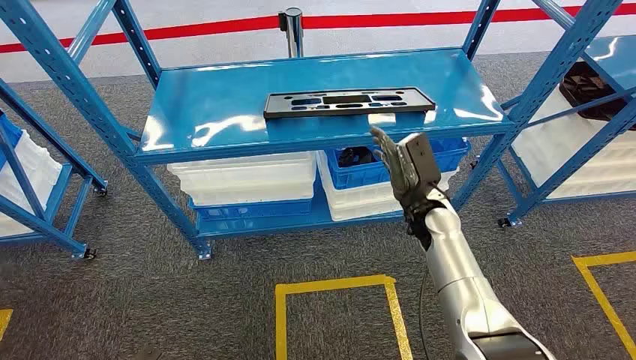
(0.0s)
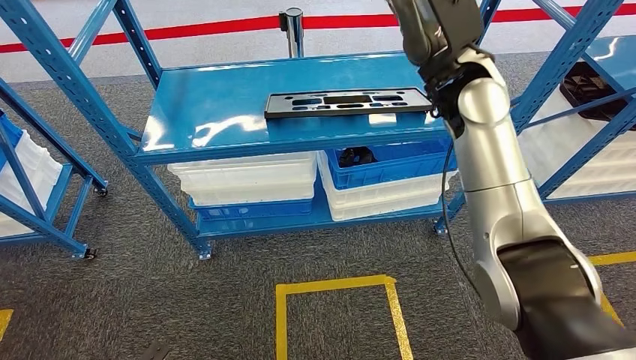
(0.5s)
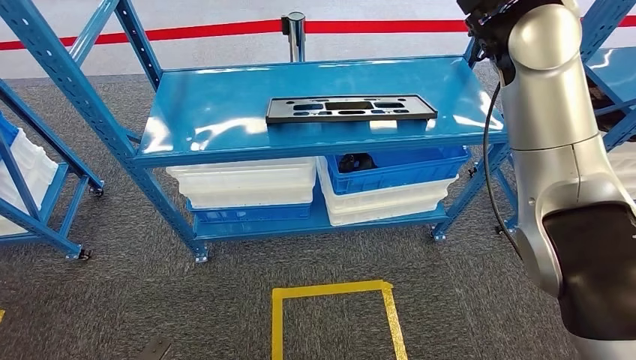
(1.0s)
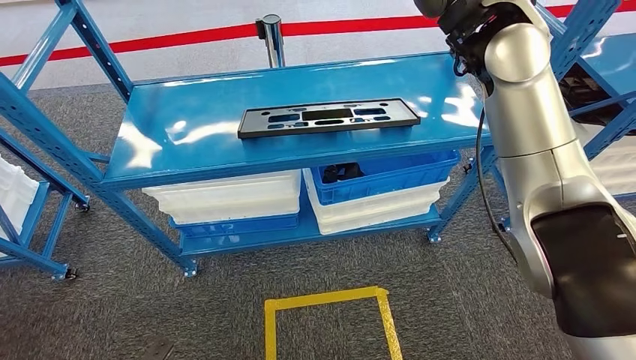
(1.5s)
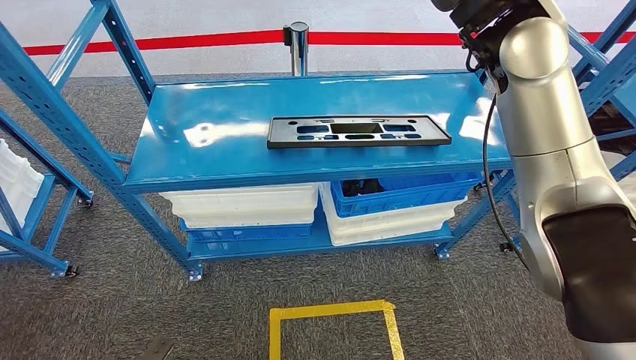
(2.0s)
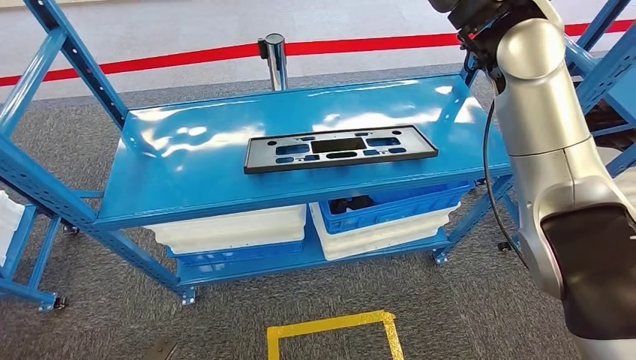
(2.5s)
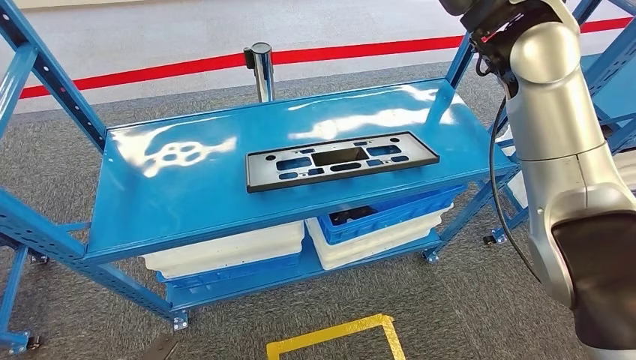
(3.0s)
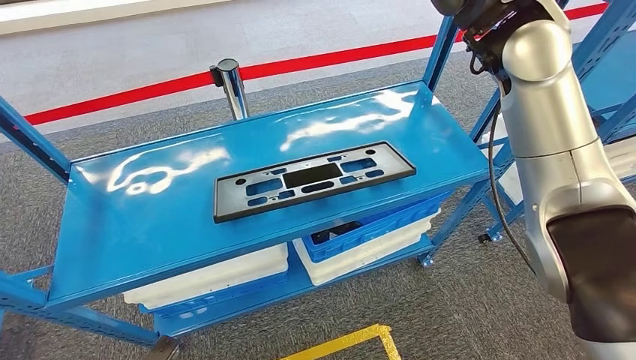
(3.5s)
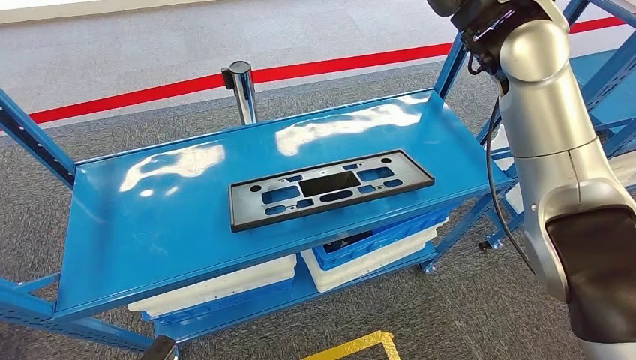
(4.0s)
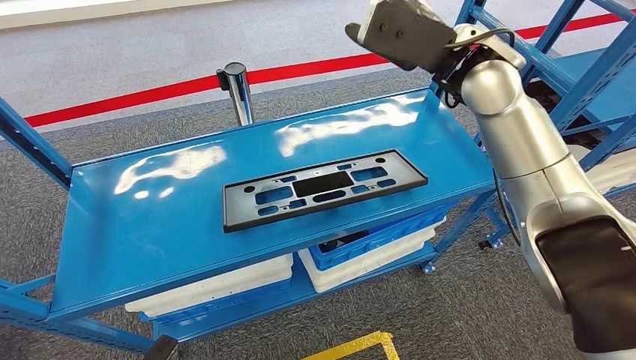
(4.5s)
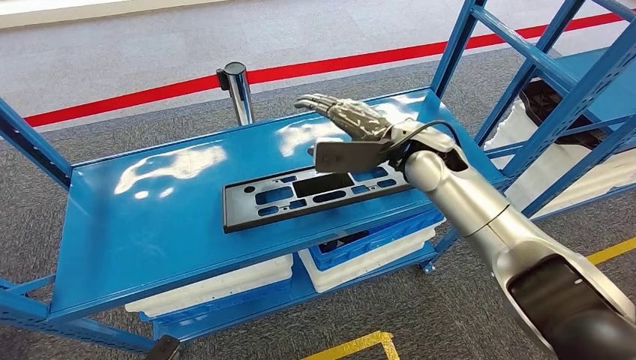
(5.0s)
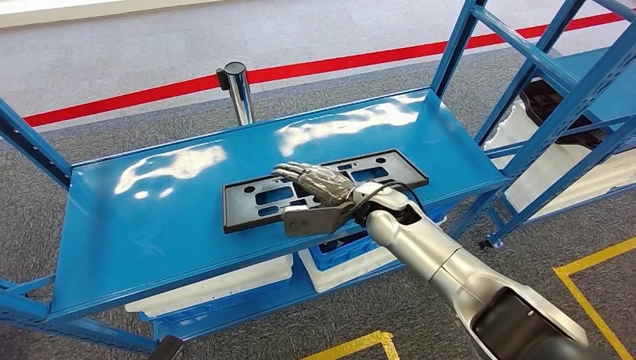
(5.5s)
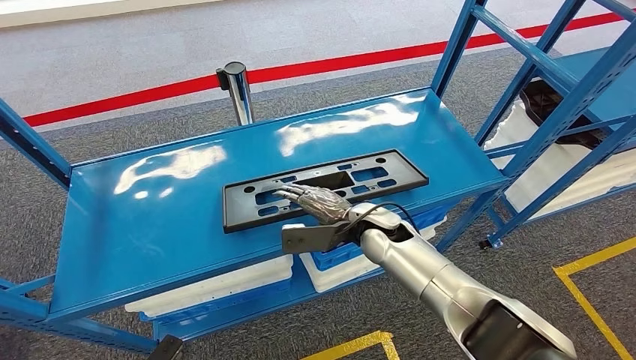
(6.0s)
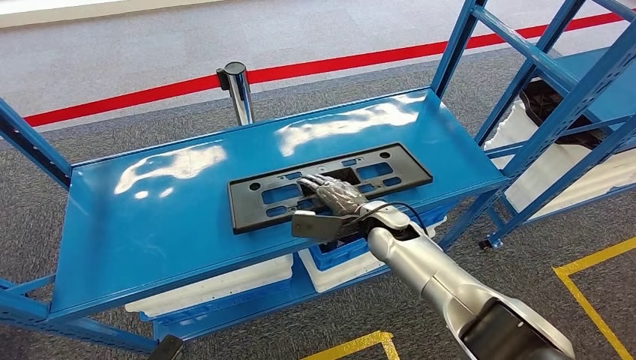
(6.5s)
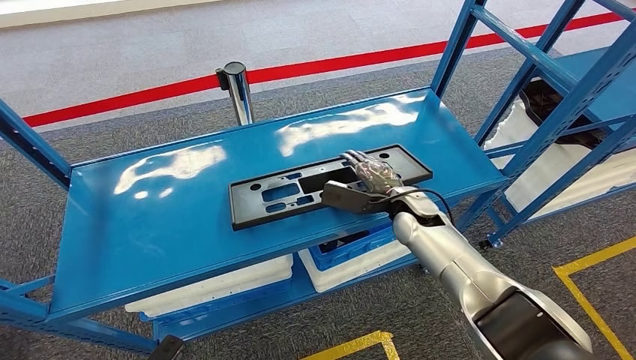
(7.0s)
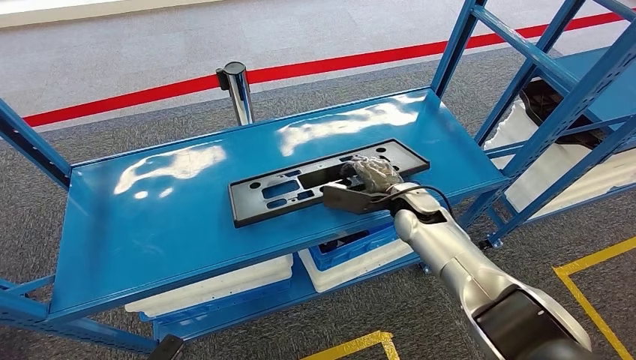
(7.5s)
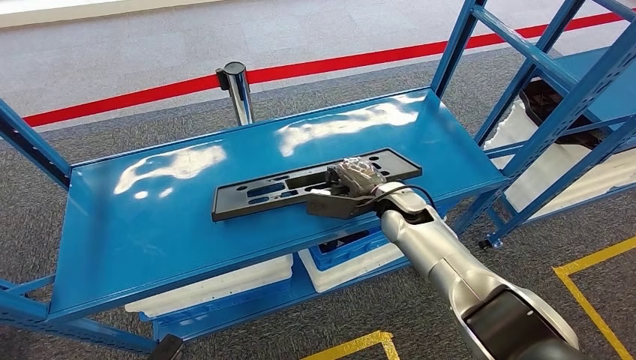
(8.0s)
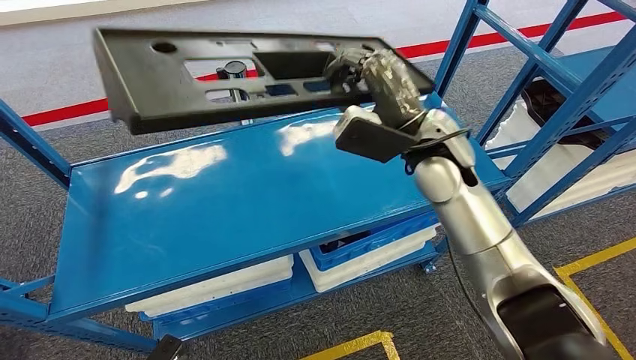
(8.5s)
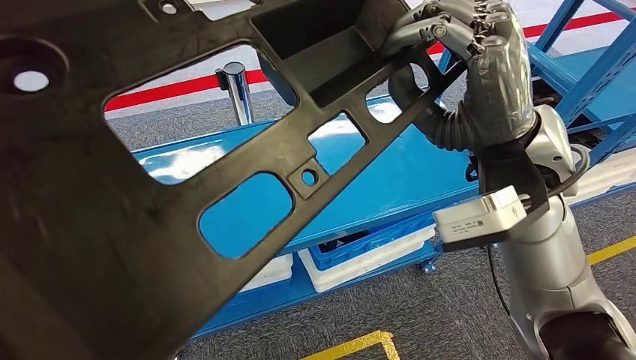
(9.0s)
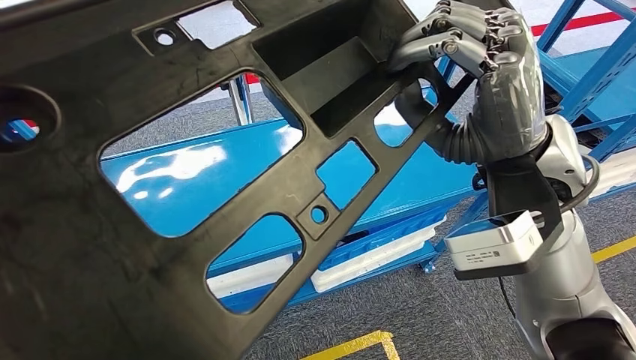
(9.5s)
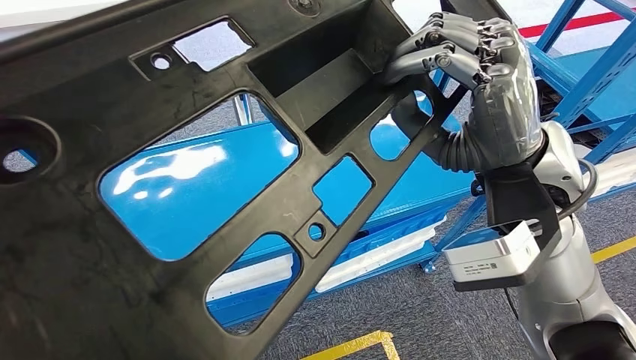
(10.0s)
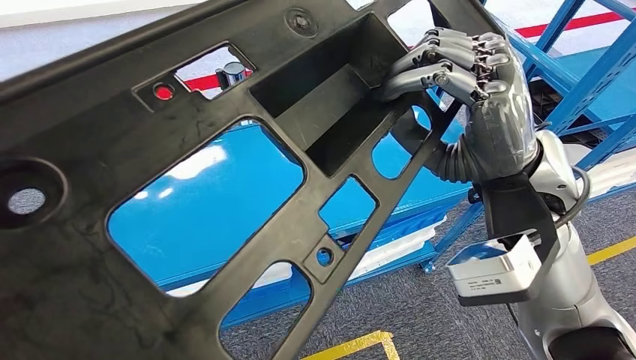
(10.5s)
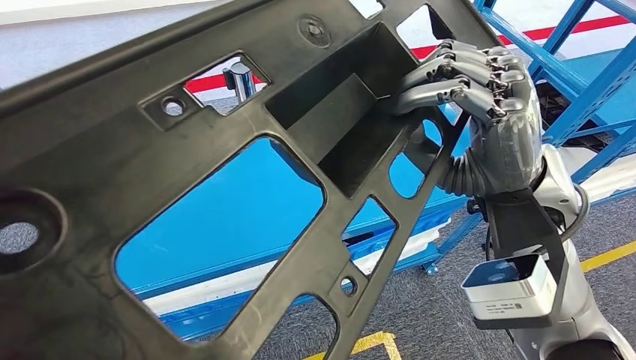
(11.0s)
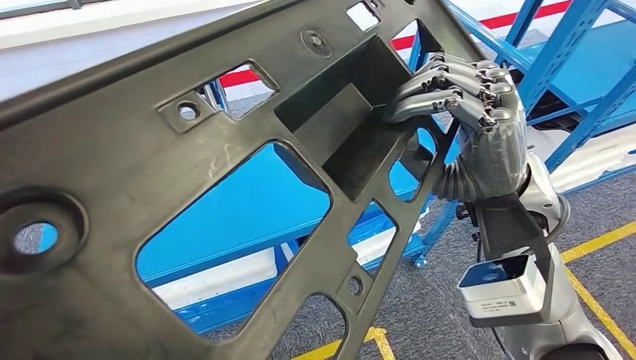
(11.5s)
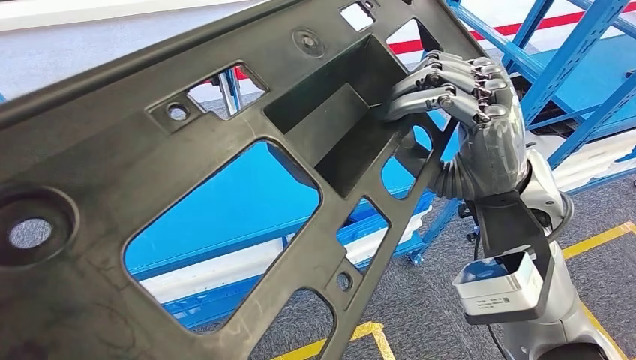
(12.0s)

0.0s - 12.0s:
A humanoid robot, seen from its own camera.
Step, 0.0s - 9.0s: Pick up the large material from the shelf.

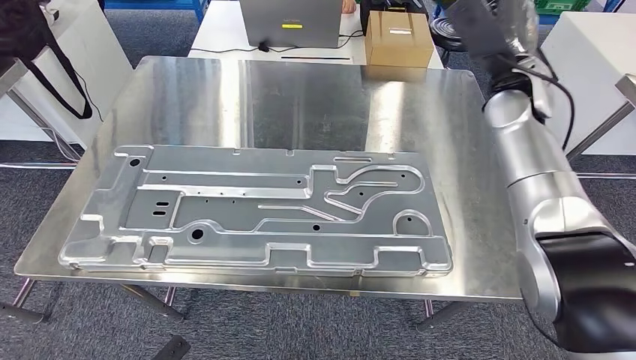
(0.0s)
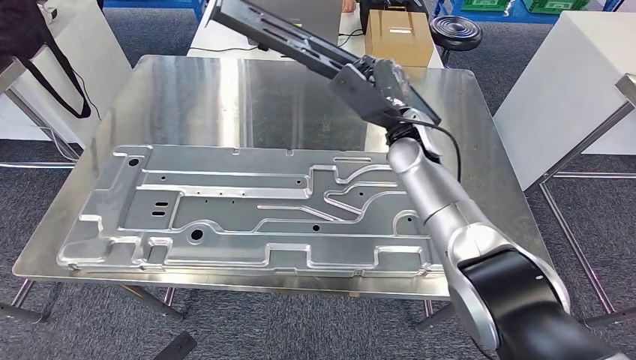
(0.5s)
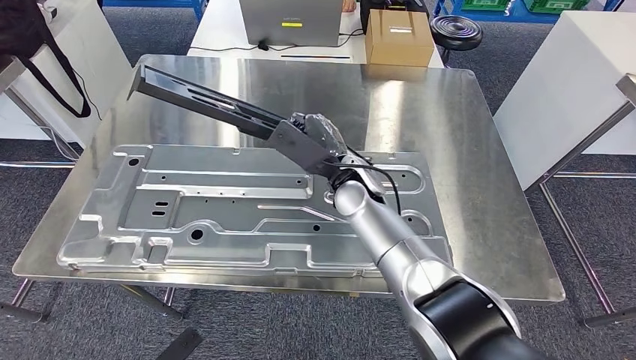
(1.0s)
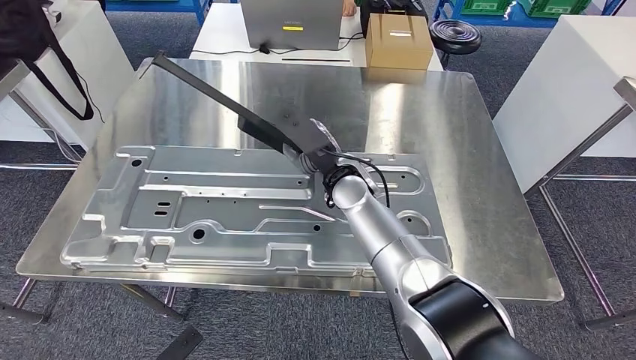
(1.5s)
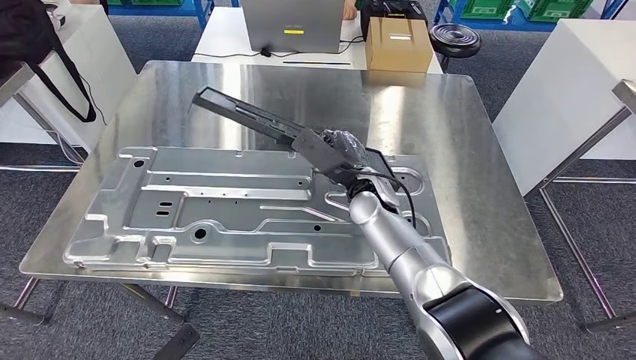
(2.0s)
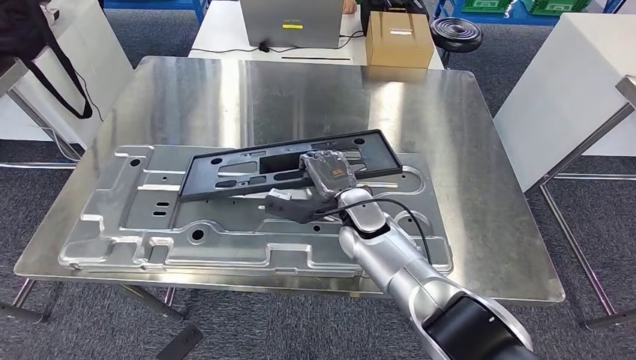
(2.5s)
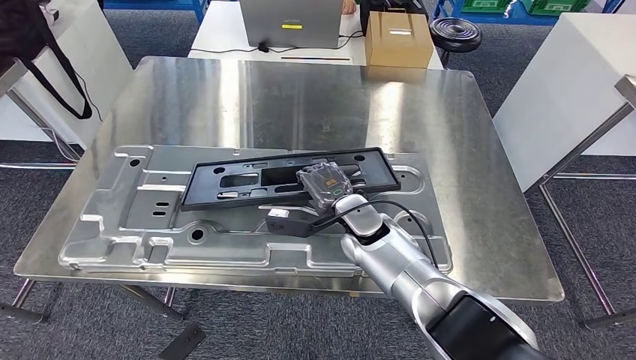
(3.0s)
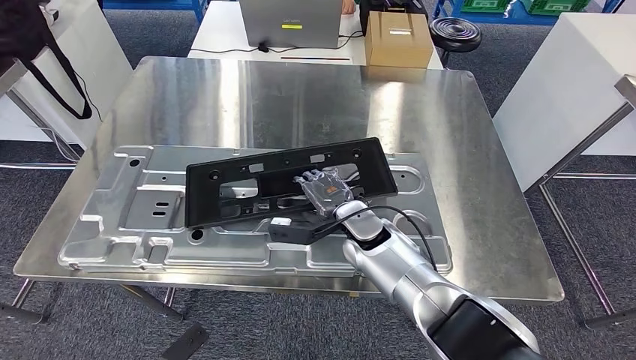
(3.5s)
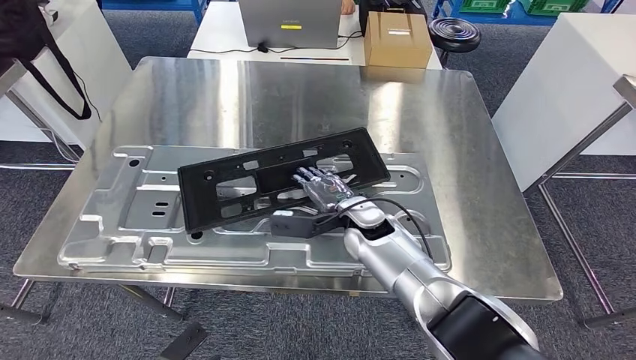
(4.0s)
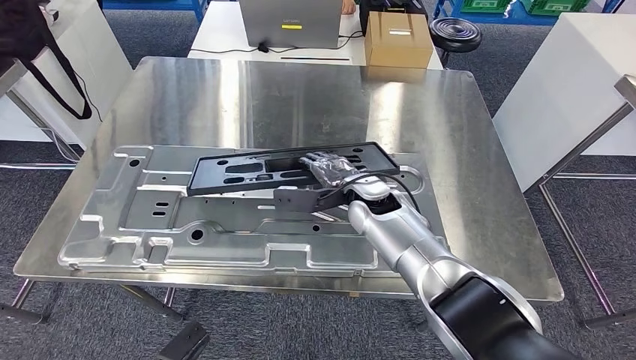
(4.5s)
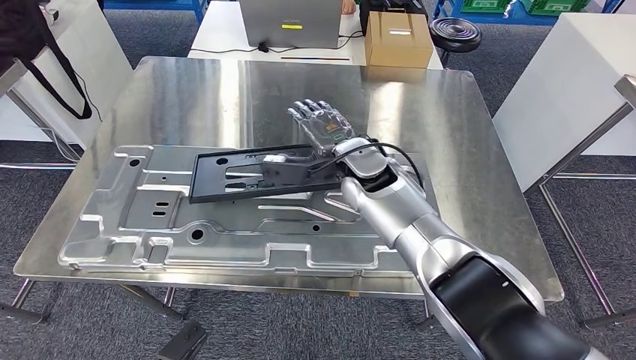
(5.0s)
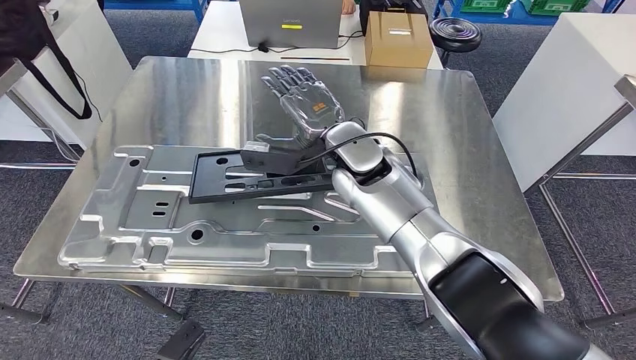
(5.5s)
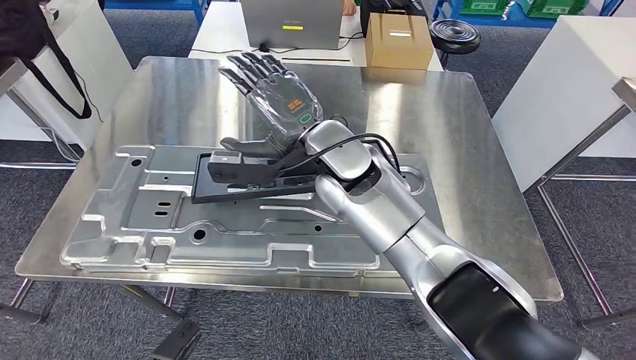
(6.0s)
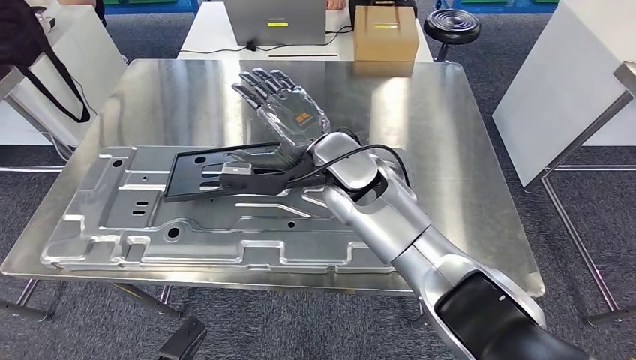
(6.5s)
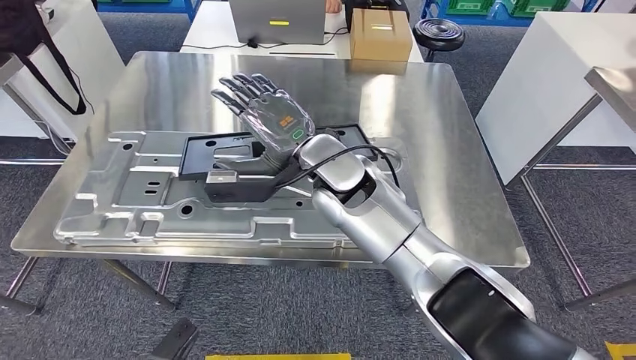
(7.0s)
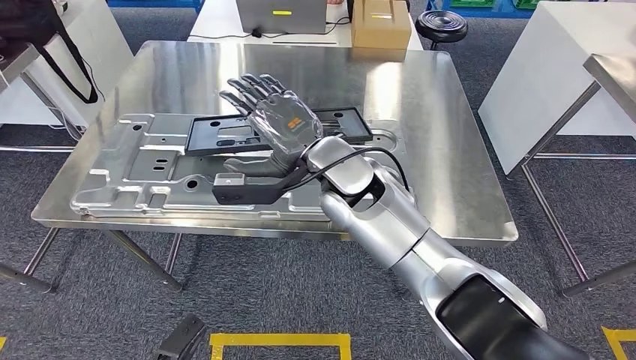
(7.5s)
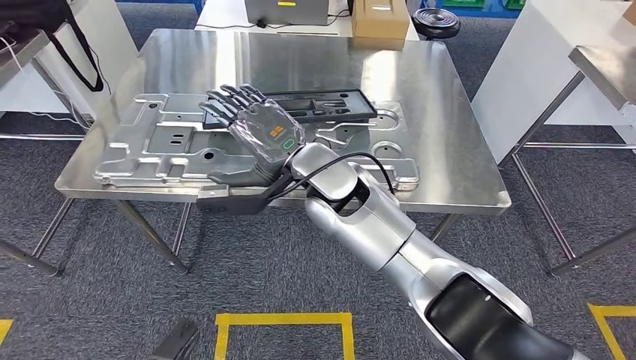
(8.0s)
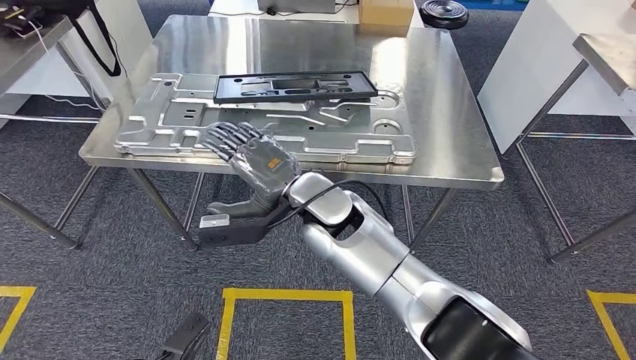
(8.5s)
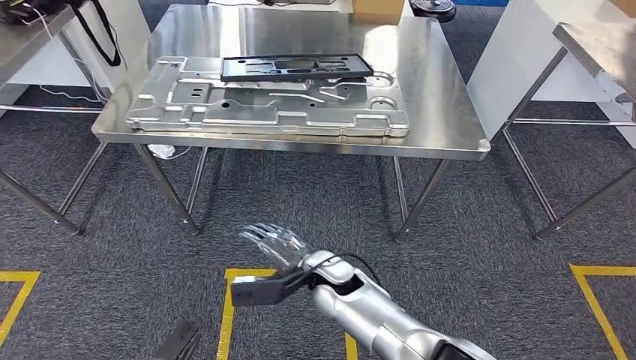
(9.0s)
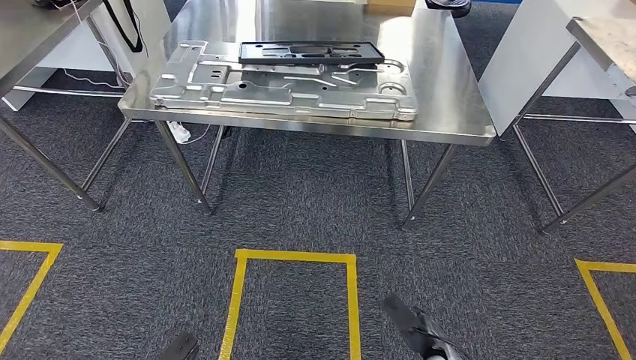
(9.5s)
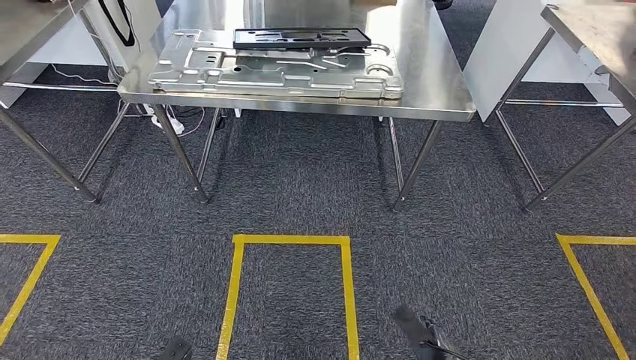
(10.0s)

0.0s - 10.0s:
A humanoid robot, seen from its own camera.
Step, 0.5s - 5.5s: Insert the large material into the corresponding slot on the workbench.
4.0s - 6.0s: The right hand heads upward and to the left, covering about 20 cm.
